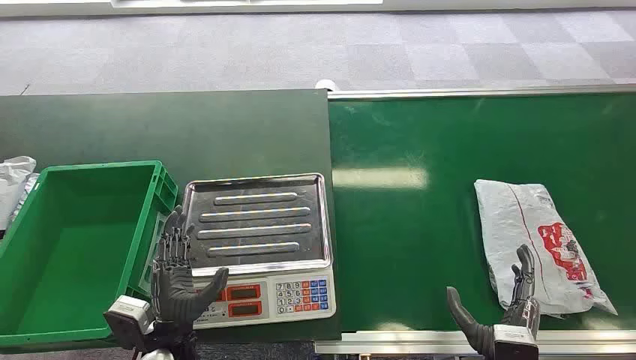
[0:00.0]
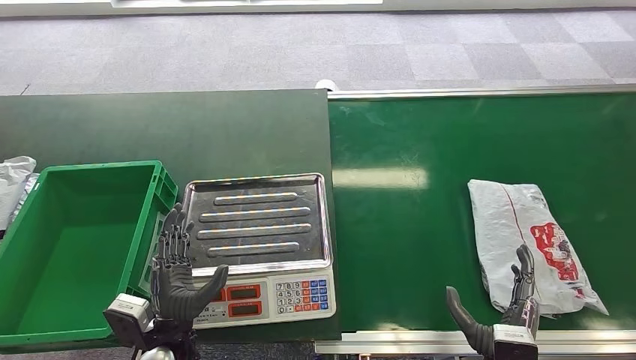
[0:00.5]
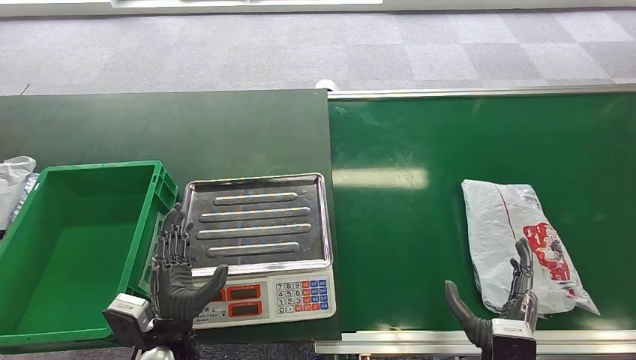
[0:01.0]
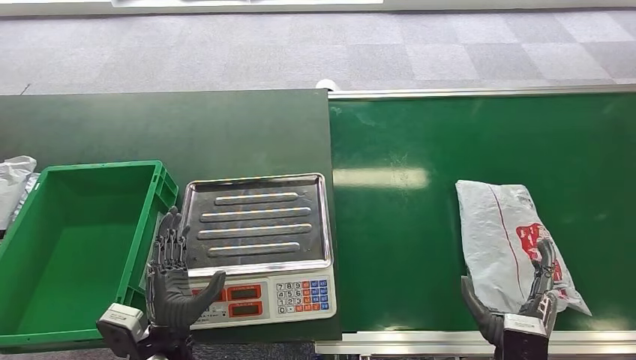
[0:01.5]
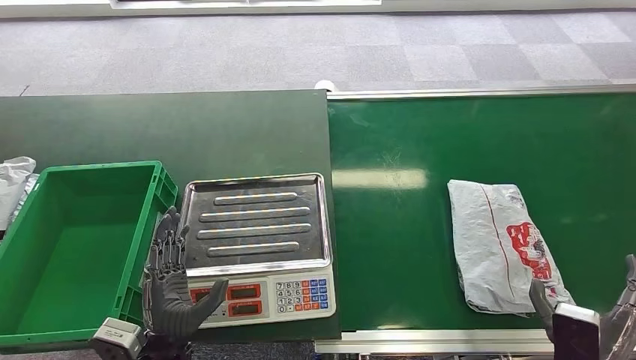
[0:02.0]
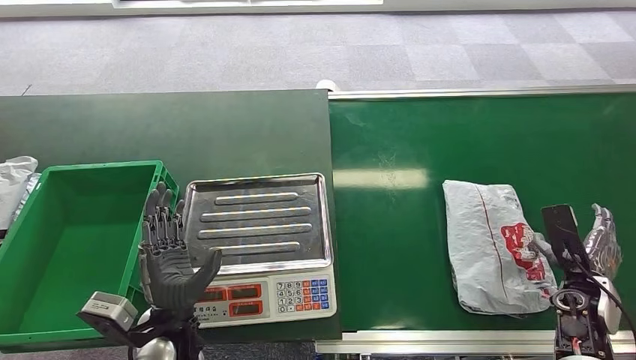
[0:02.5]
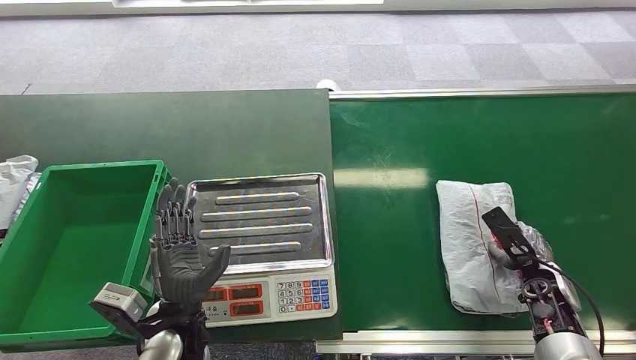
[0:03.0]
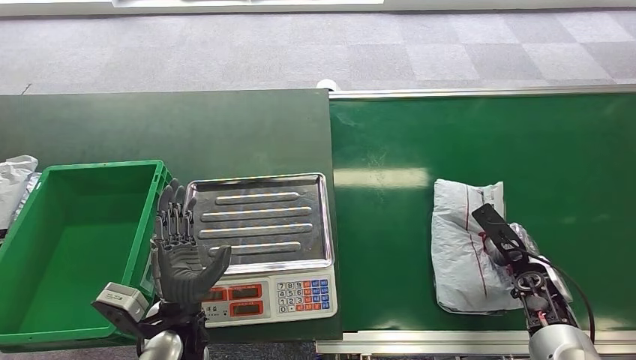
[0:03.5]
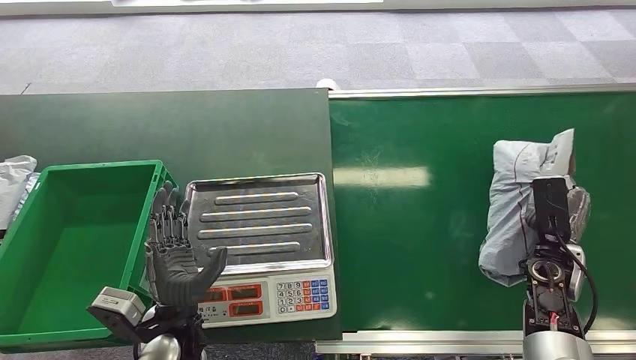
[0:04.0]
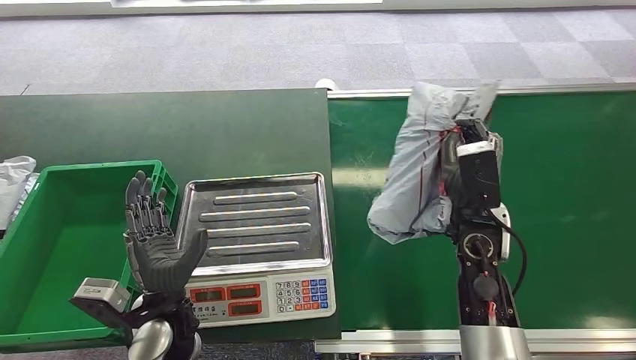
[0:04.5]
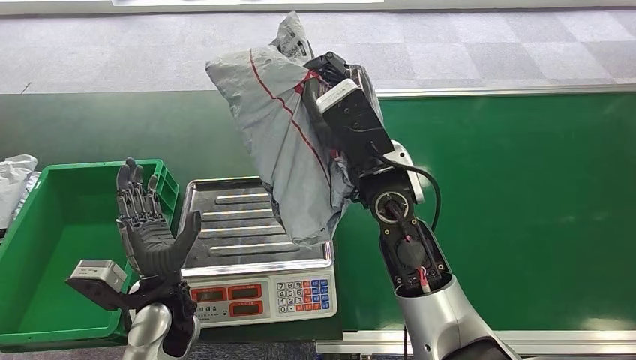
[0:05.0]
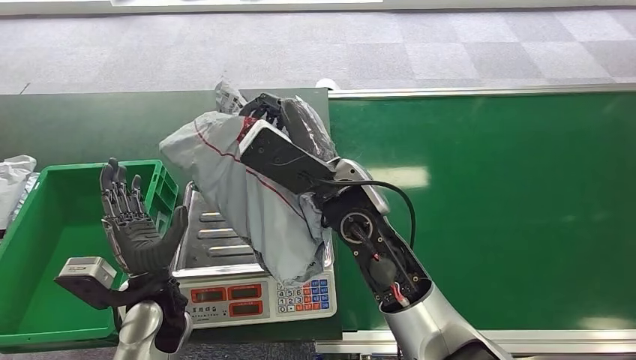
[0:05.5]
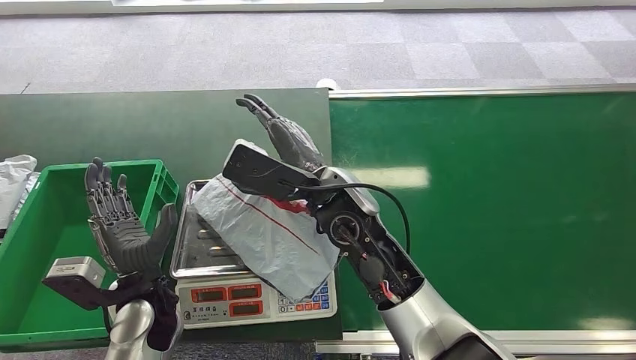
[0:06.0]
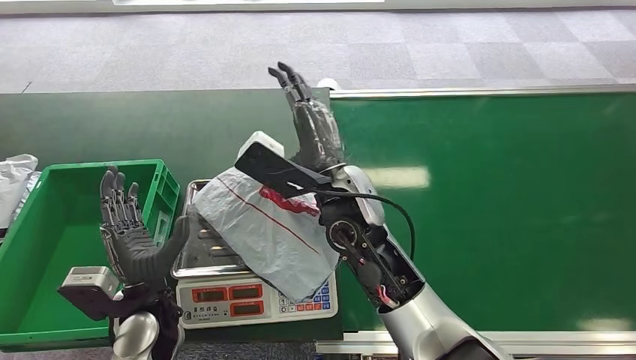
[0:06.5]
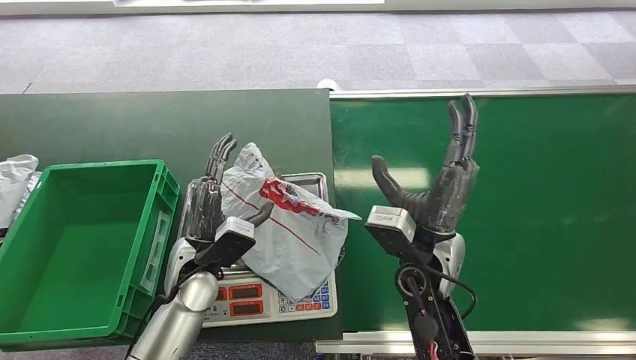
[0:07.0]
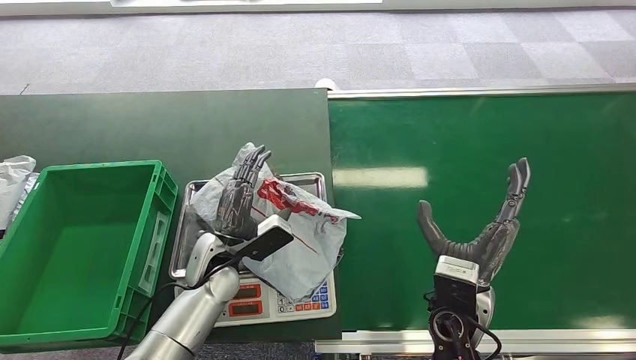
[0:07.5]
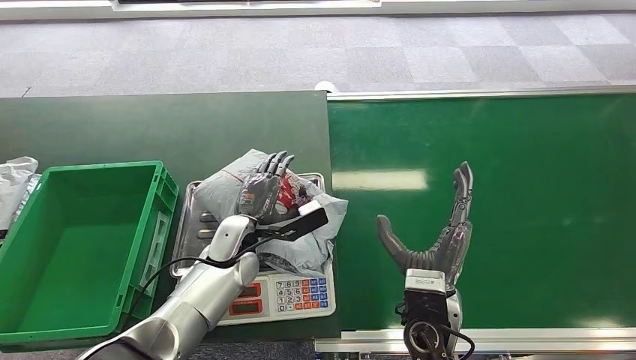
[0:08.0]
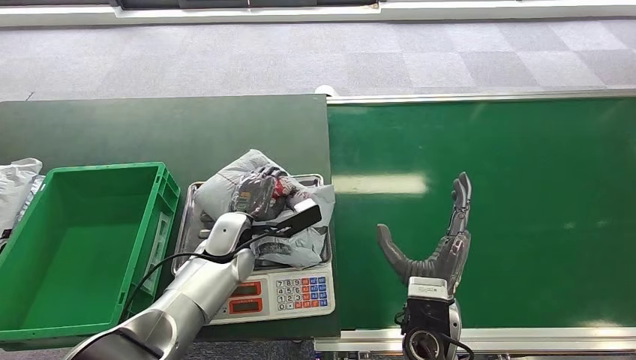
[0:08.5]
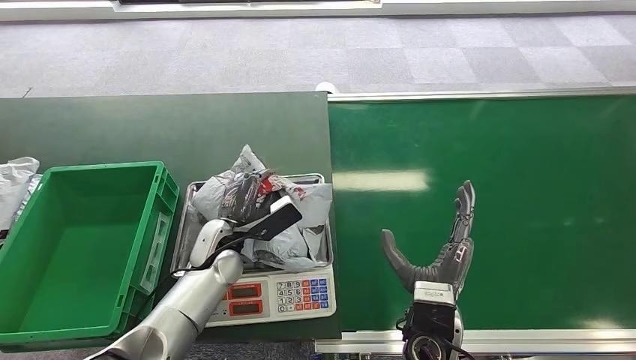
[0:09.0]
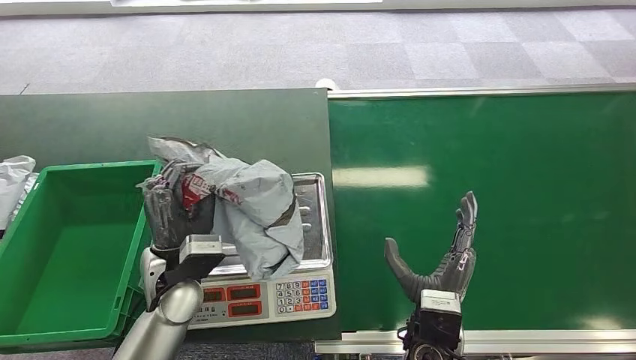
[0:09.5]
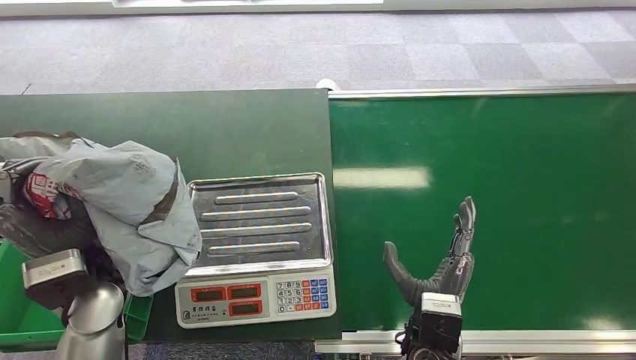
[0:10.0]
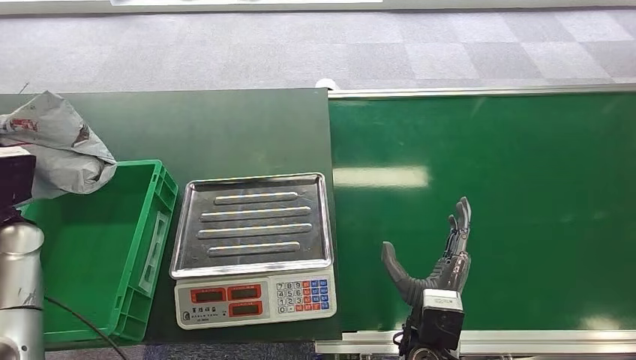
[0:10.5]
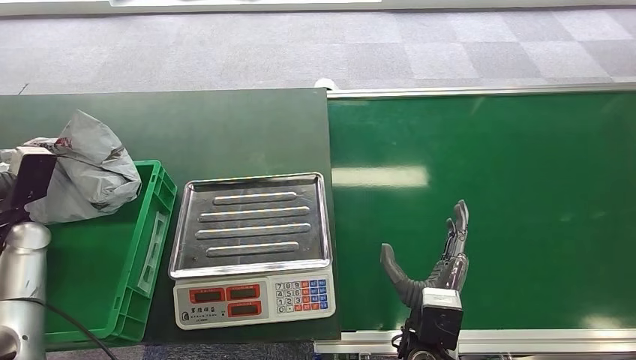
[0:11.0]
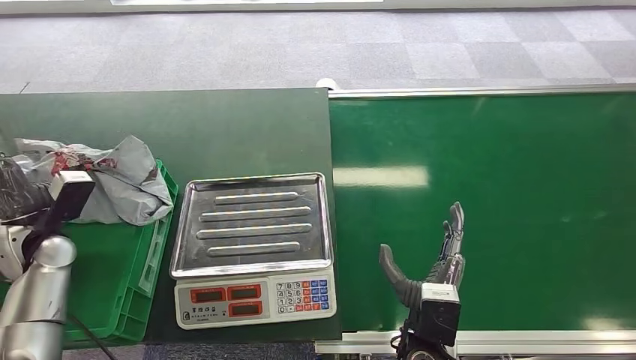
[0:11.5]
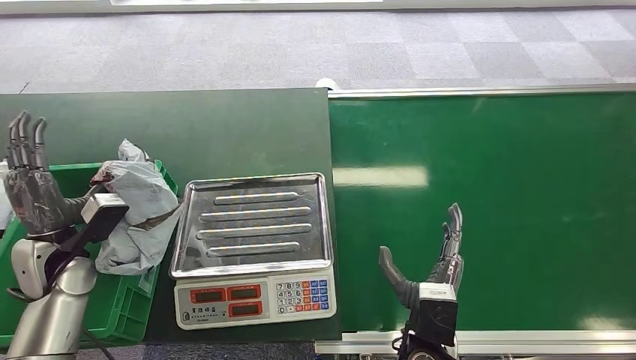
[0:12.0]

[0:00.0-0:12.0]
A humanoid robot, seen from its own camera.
Step, 0:00.0 to 0:04.5: Pick up the package from the conveyor belt.
Step, 0:05.0 to 0:06.5: Place the package onto the inbound machine.
Step, 0:07.0 to 0:09.5: Pick up the package from the inbound machine.
0:02.0 to 0:04.0: The right hand shifts roughly 20 cm forward.
0:10.0 to 0:12.0: The left hand heads to the left, covering approximately 10 cm.

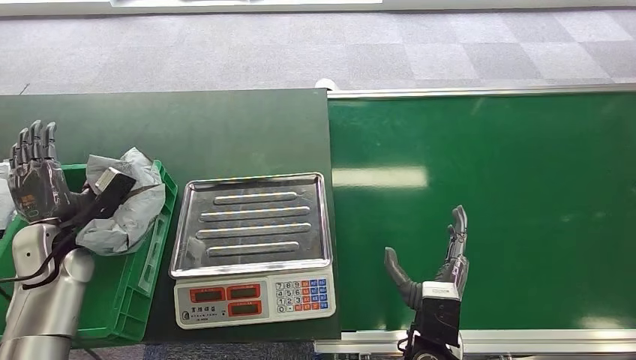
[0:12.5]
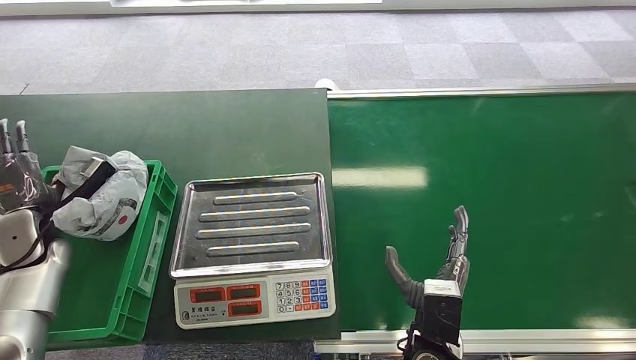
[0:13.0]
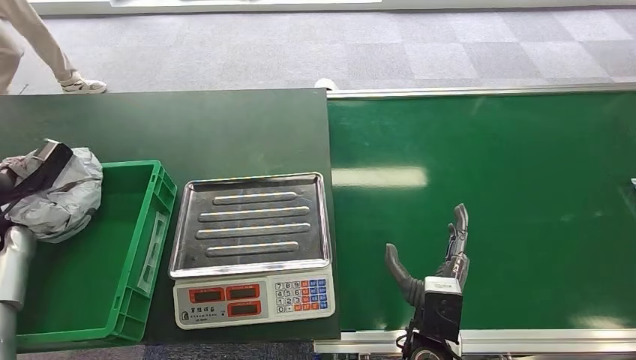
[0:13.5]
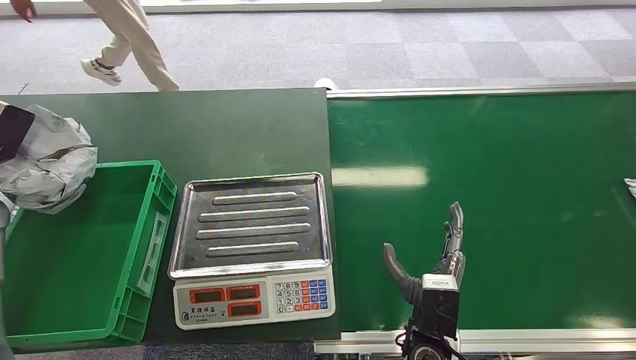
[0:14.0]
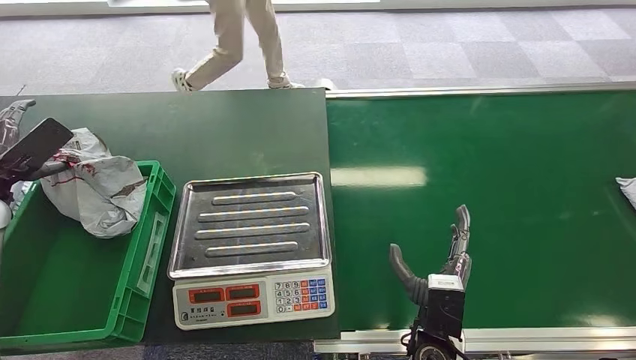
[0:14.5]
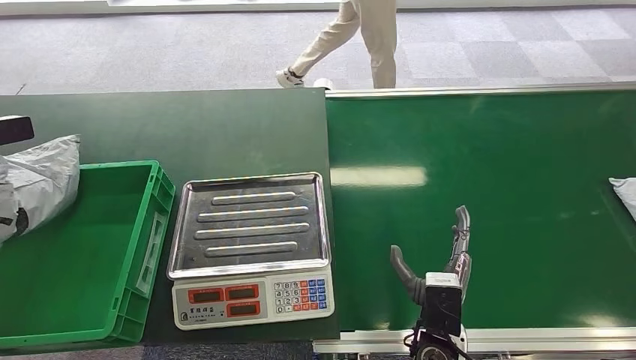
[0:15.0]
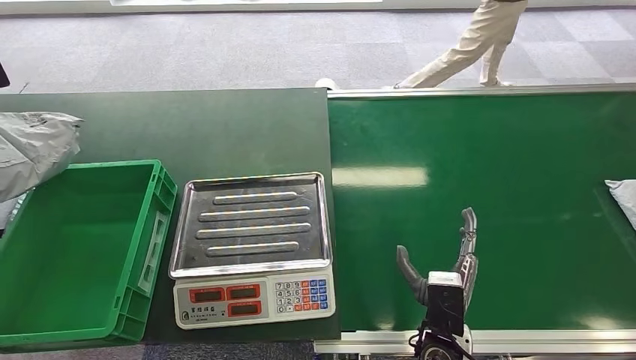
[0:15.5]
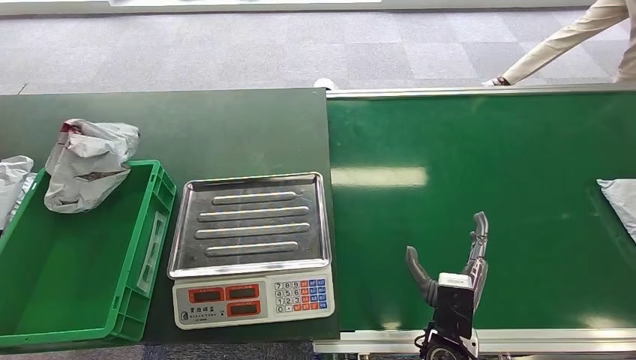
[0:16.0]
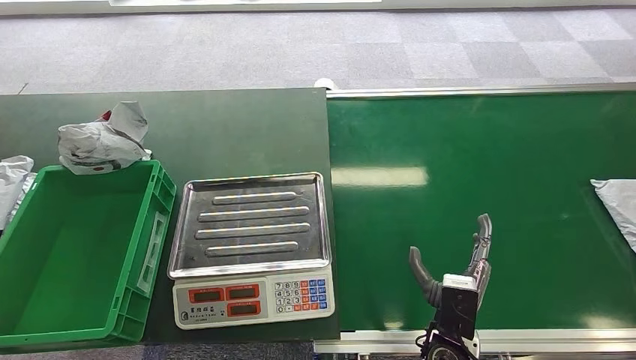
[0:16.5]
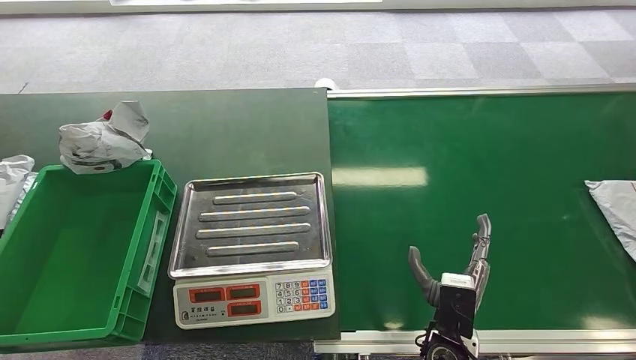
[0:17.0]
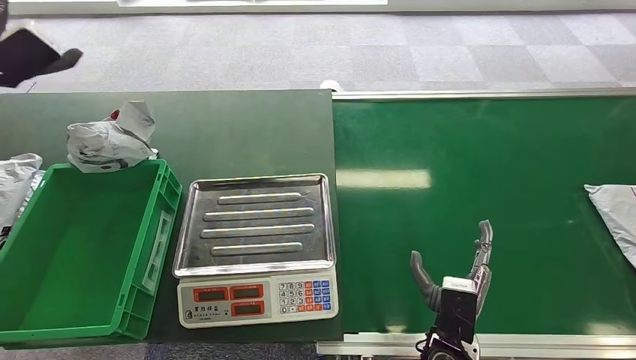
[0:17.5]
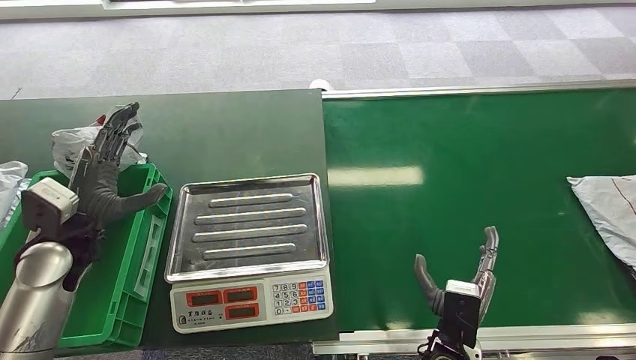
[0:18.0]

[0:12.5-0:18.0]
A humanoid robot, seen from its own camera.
Step, 0:12.5 to 0:18.0: Place the package into the parcel locker.
0:12.5 to 0:14.5: The left hand heads to the left and upward, covering roughly 15 cm.
0:14.5 to 0:16.0: The left hand moves upward, roughly 25 cm.
